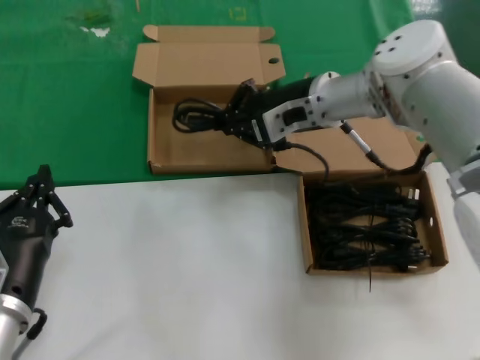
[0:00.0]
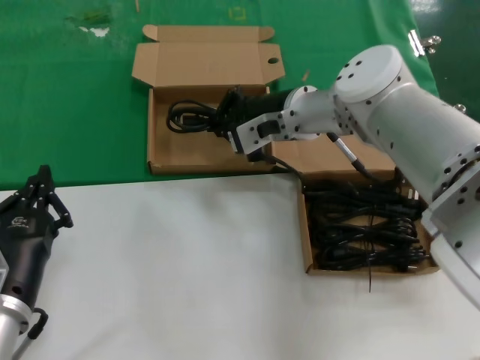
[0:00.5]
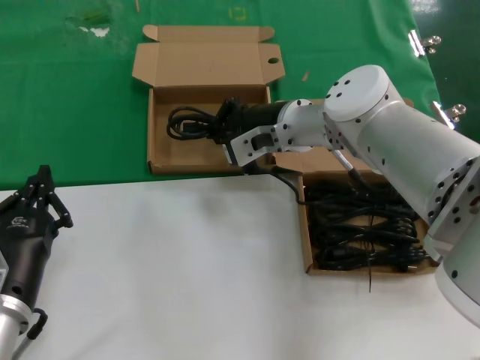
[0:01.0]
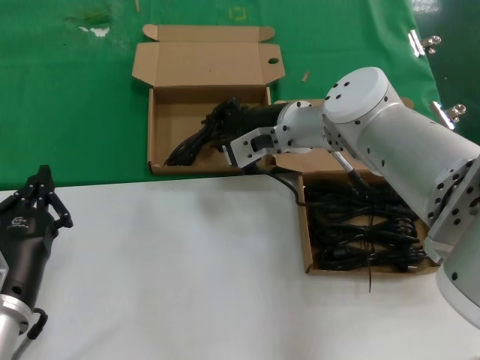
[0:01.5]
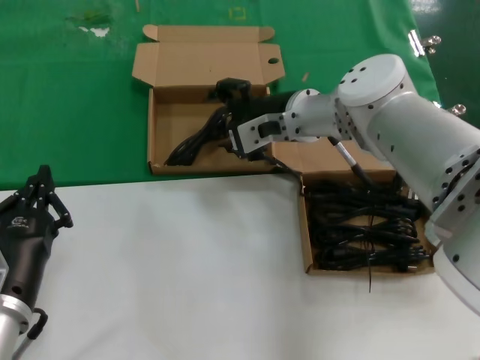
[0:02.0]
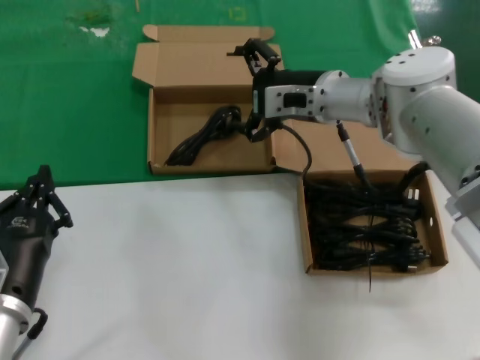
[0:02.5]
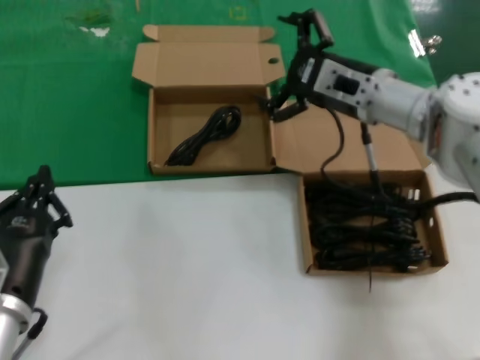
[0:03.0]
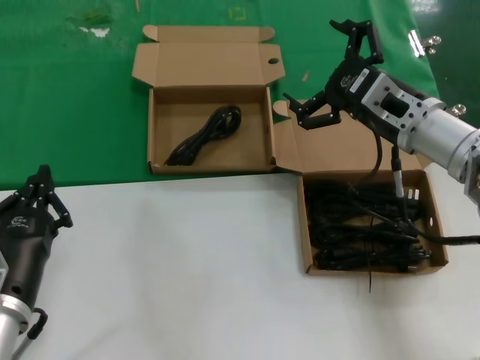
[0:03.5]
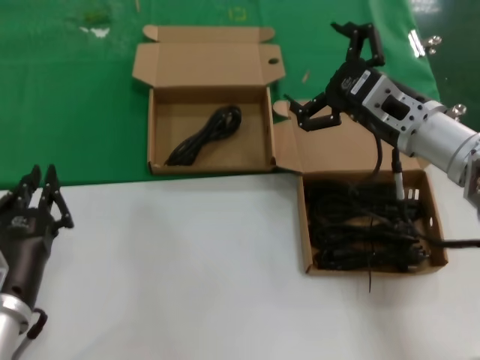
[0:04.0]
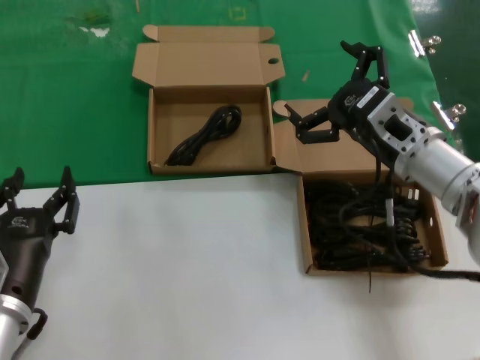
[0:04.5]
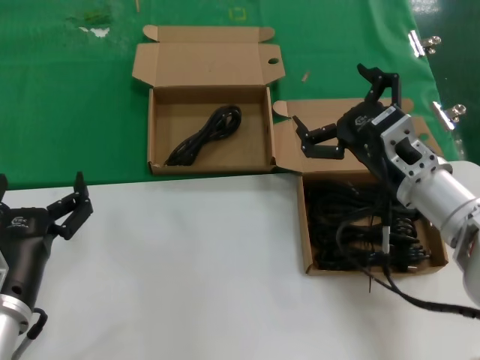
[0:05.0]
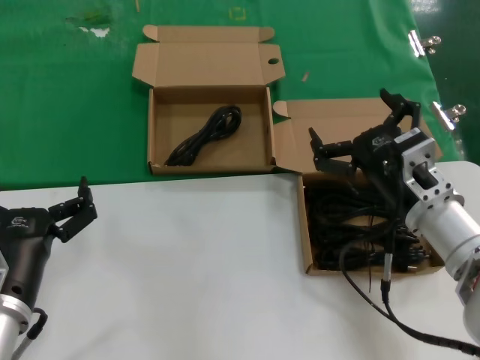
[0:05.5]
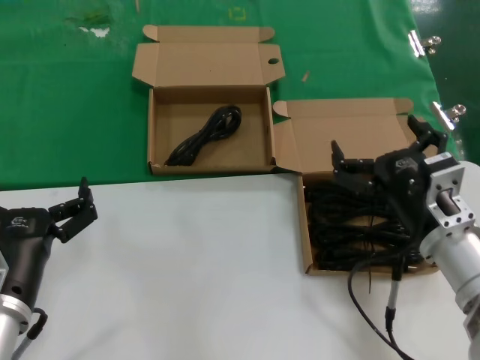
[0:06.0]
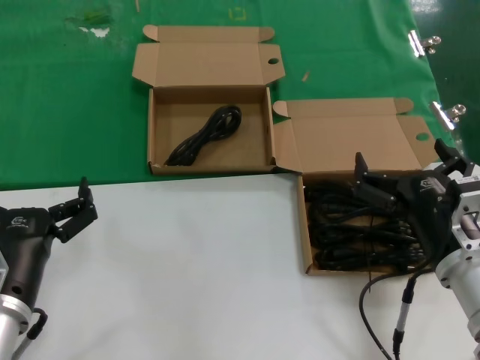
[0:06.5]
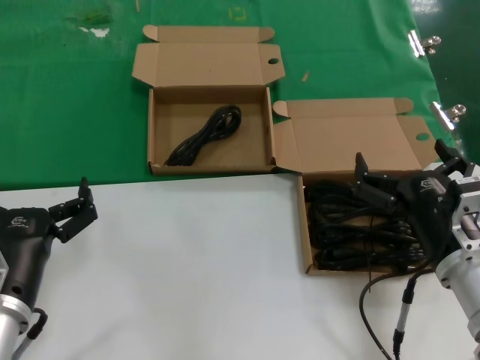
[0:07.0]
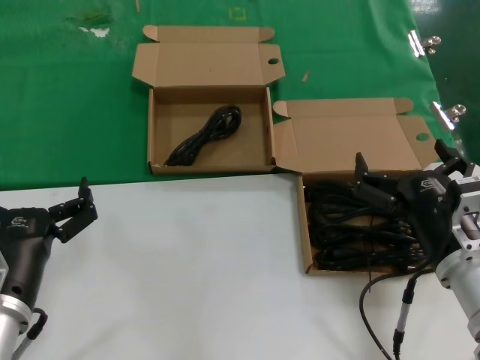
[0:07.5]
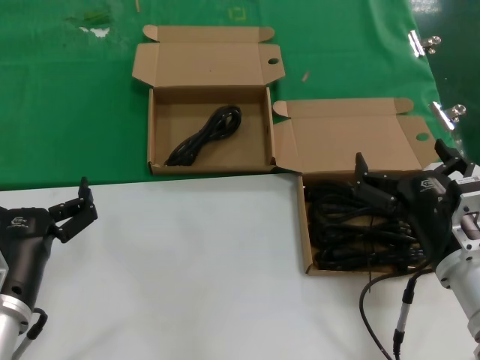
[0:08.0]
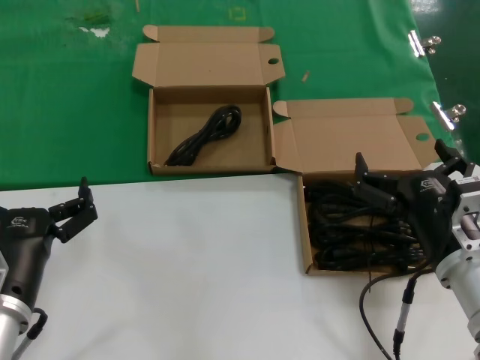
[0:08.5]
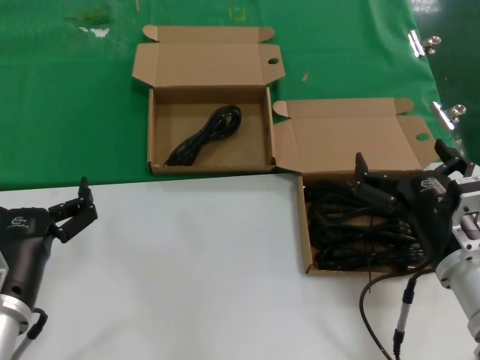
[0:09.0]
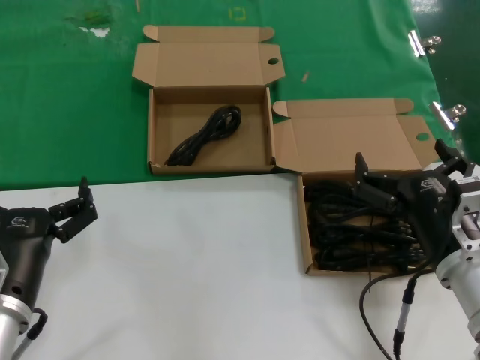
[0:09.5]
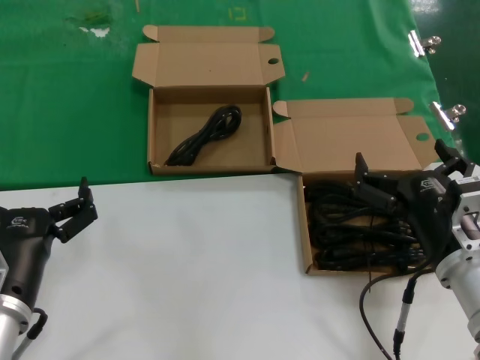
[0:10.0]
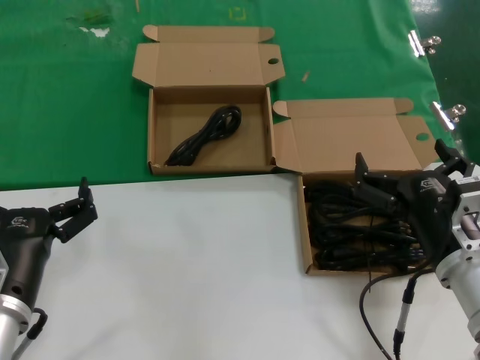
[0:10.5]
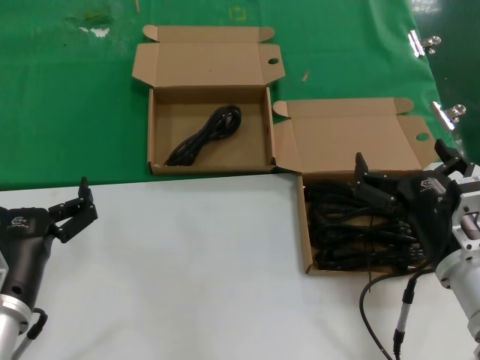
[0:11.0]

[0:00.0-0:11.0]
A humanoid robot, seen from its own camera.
Task of the whole recording: take the parts from the box containing them and put them into an empty box.
0:00.0 to 0:02.0: The right hand changes place by approximately 5 cm.
0:02.0 to 0:03.5: The right hand heads to the right and backward, covering some 15 cm.
0:03.5 to 0:05.5: The right hand heads backward and downward, covering some 10 cm.
0:05.5 to 0:07.5: The right hand goes roughly 5 cm backward.
0:07.5 to 0:11.0: Both hands stay about where they are.

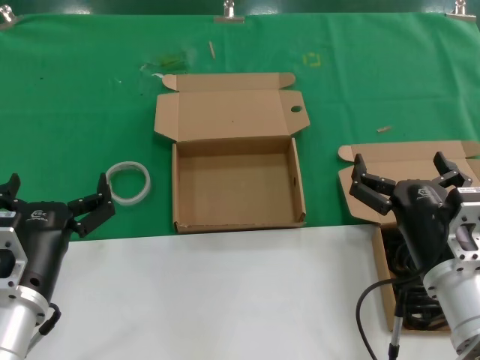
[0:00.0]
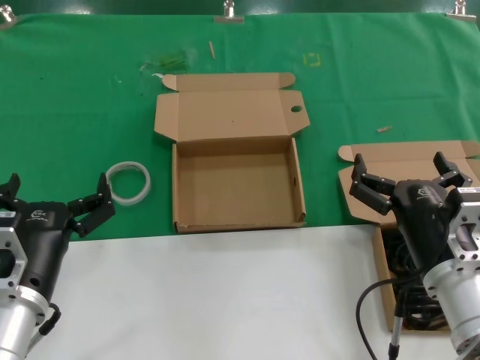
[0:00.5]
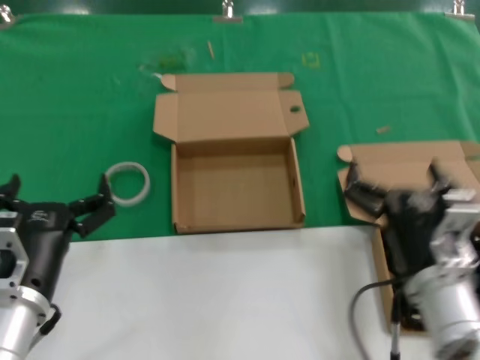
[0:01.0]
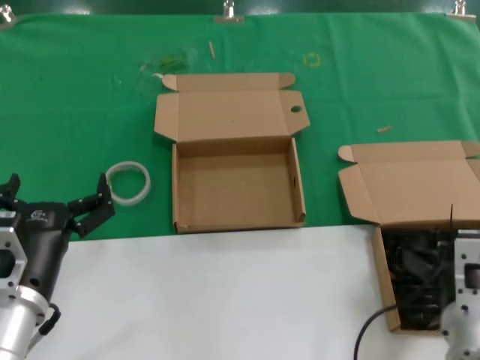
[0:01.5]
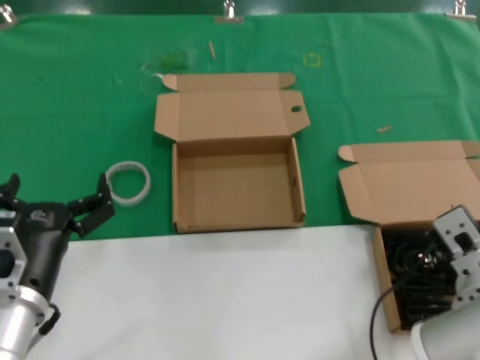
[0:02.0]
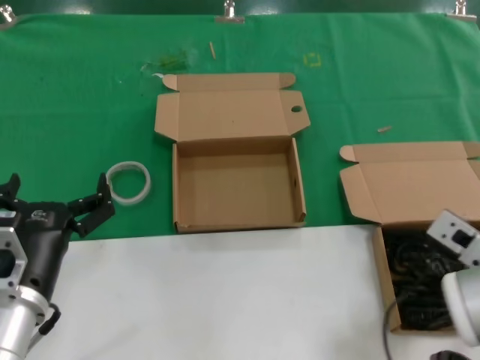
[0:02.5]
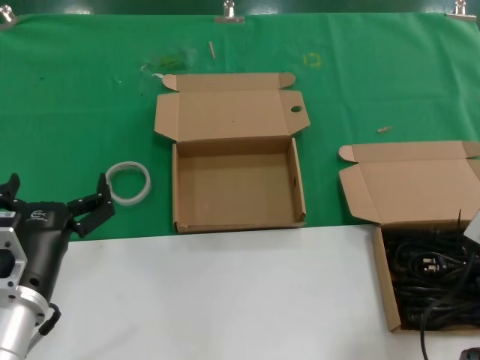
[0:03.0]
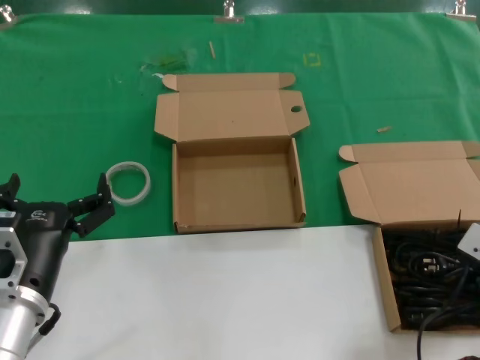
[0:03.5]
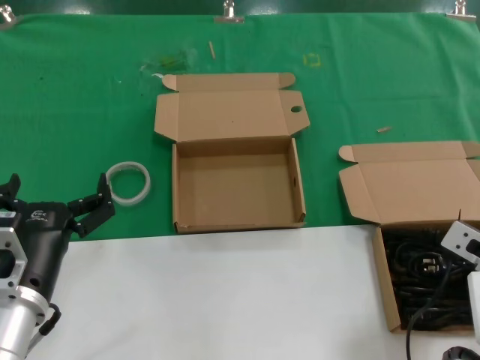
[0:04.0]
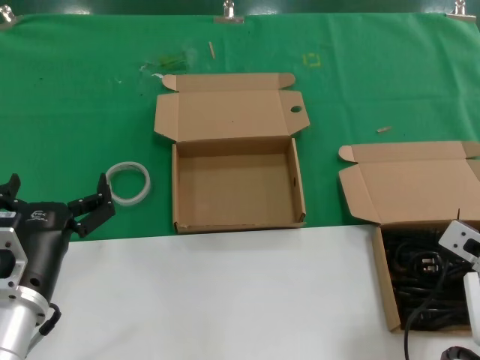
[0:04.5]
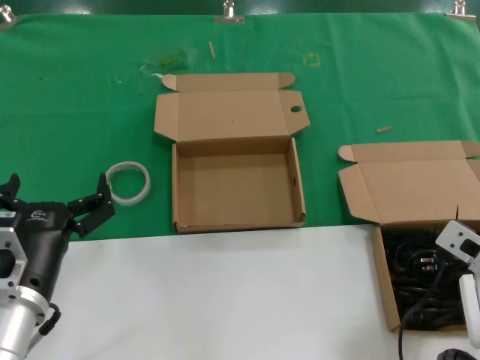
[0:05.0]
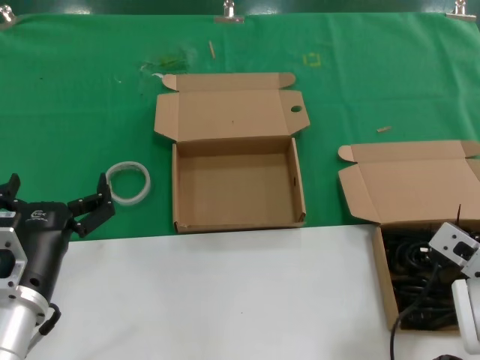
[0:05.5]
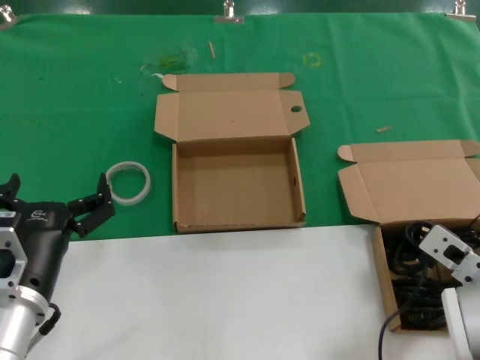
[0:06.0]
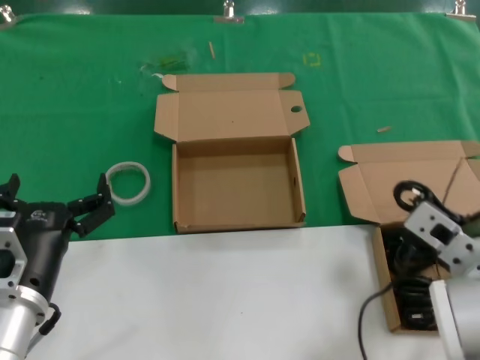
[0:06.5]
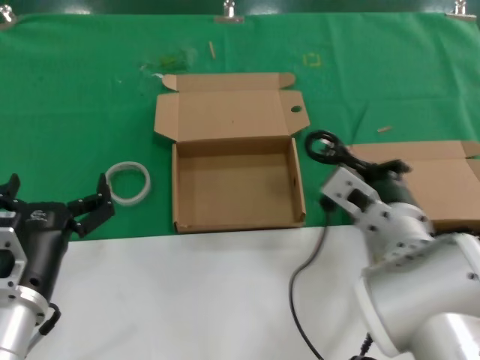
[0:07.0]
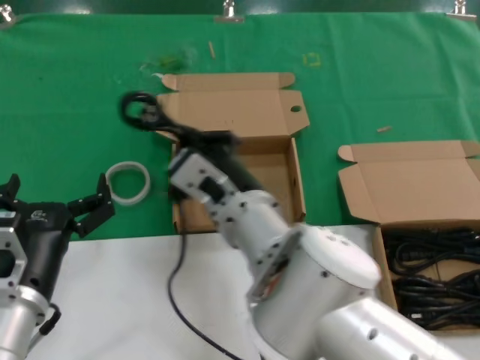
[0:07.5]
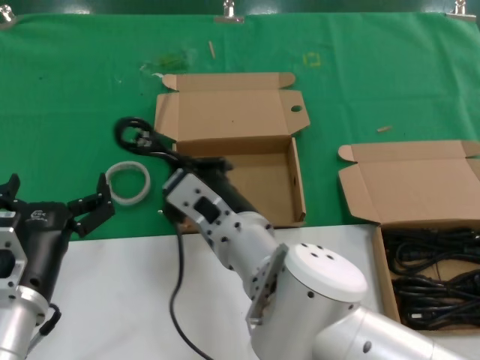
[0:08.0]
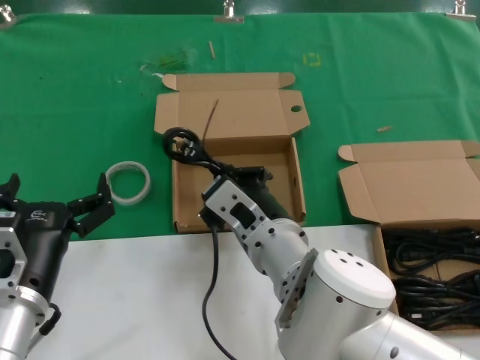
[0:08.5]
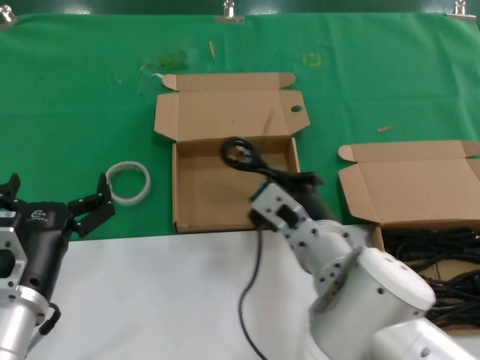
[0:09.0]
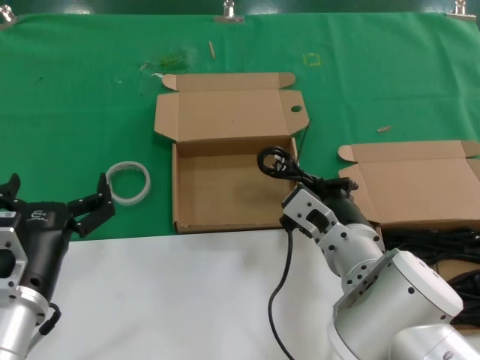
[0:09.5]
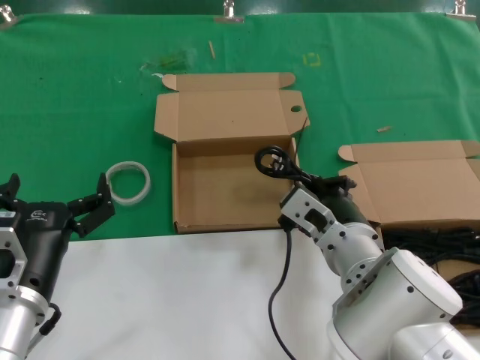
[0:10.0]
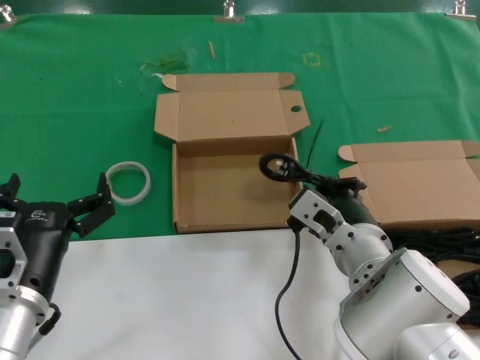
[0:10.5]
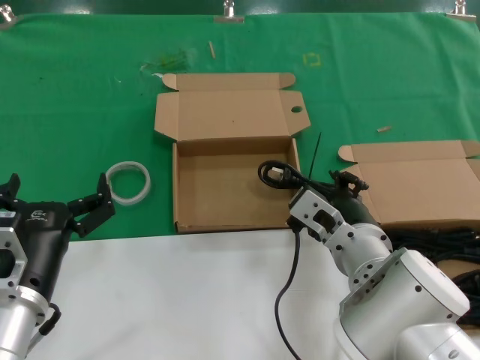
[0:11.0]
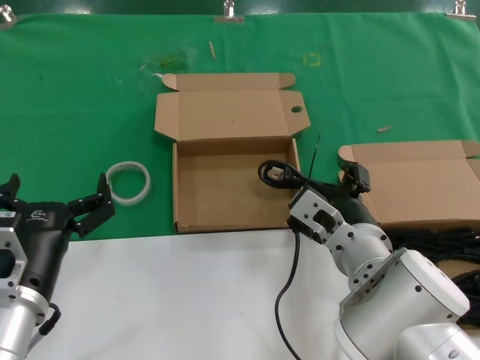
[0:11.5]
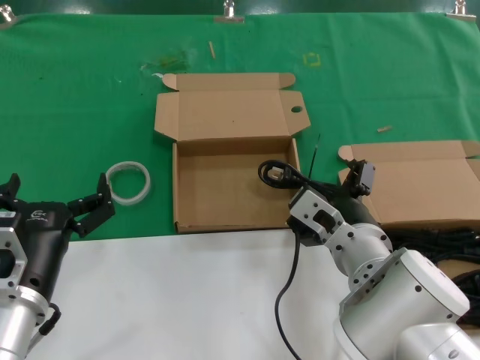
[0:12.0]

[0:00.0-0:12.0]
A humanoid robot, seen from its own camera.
Task of the whole recording: take the parts from the box containing them and put them into an empty box.
Step, 0:00.0 to 0:05.5: Grasp the data cable.
Step, 0:06.0 to 0:11.0: Place the data cable in the another box.
0:02.0 to 0:04.0: The right hand shifts roughly 5 cm to the right.
0:04.0 to 0:06.0: The hands make only small movements.
0:06.0 to 0:08.0: The right hand goes about 25 cm to the left.
0:08.0 to 0:10.0: The right hand heads to the right, covering approximately 10 cm.
0:10.0 to 0:12.0: The two hands keep their place.

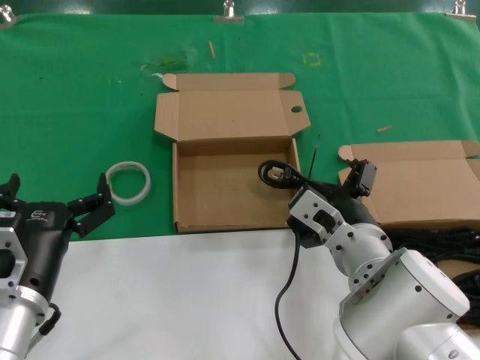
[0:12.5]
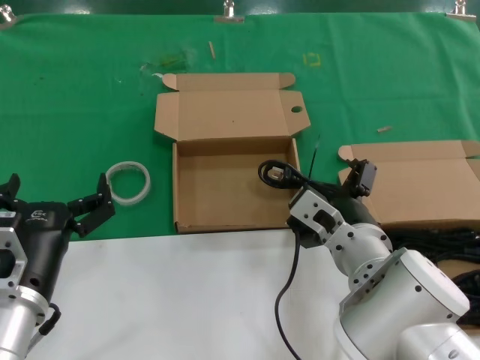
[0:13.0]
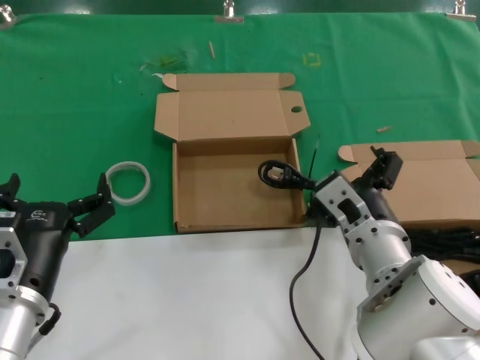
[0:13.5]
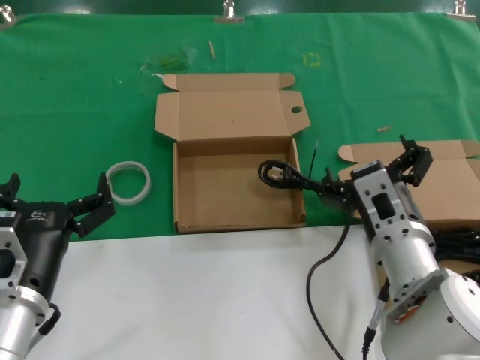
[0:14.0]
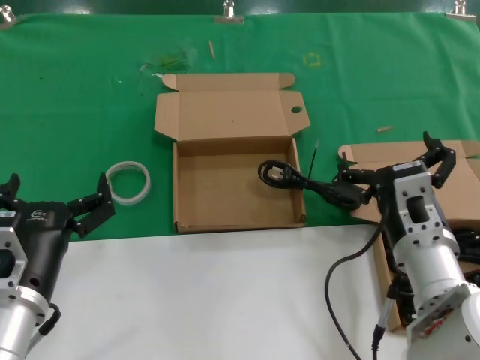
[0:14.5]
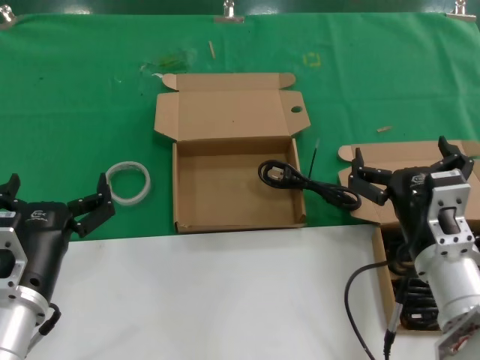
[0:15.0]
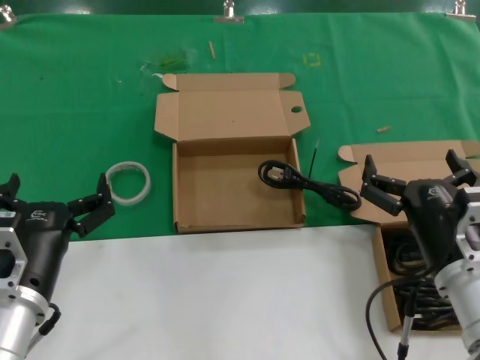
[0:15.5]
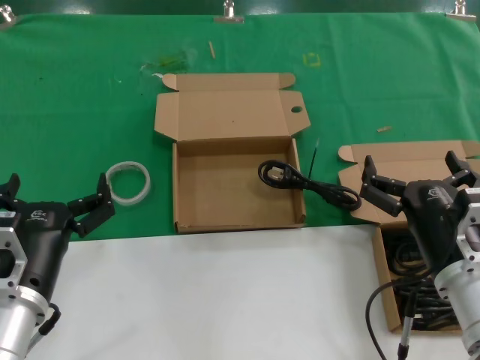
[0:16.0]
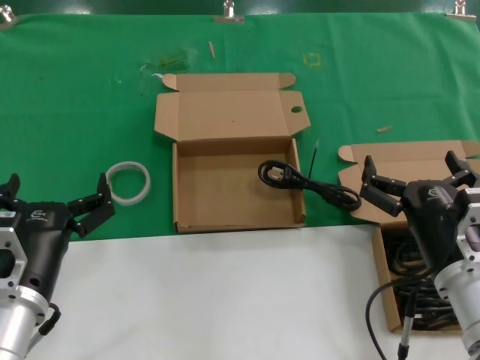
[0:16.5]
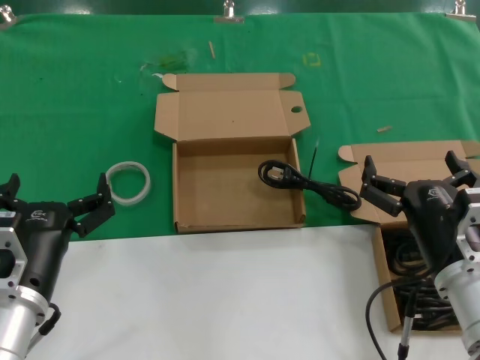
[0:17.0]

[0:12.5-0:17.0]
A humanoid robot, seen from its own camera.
Task of the whole recording: take the parts from the box containing them and put them into an empty box.
0:12.5 to 0:14.5: The right hand travels to the right by about 5 cm.
0:14.5 to 0:17.0: The right hand shifts by some 5 cm.
